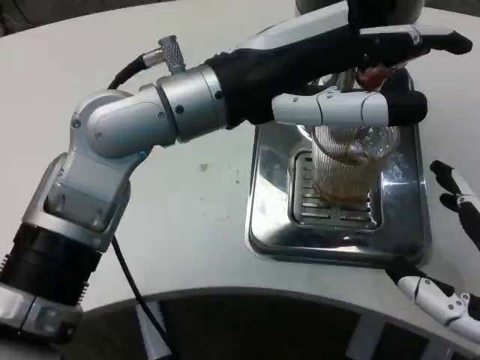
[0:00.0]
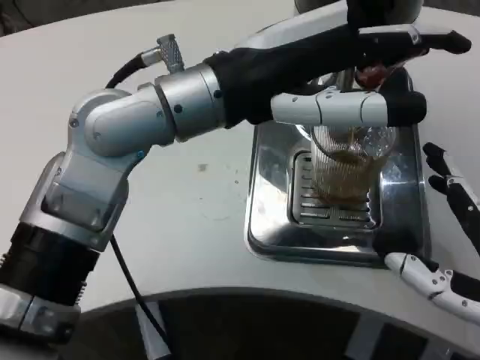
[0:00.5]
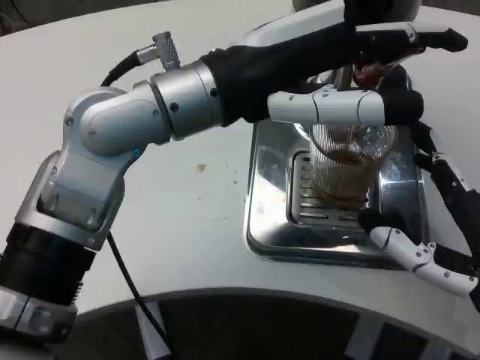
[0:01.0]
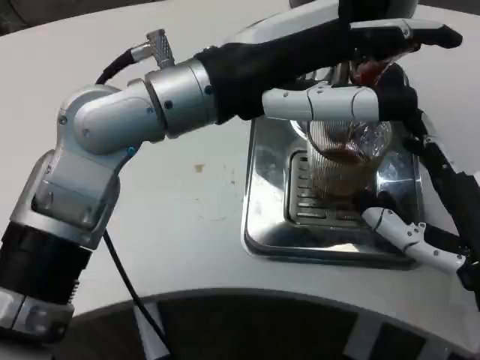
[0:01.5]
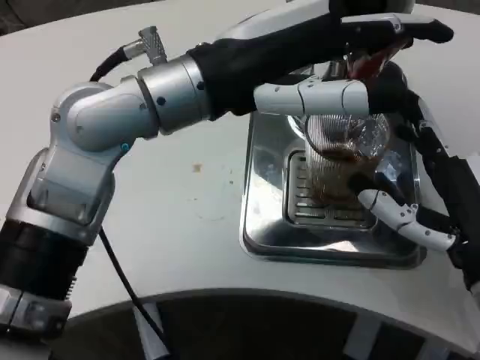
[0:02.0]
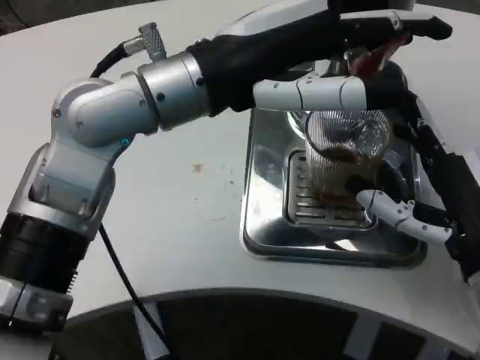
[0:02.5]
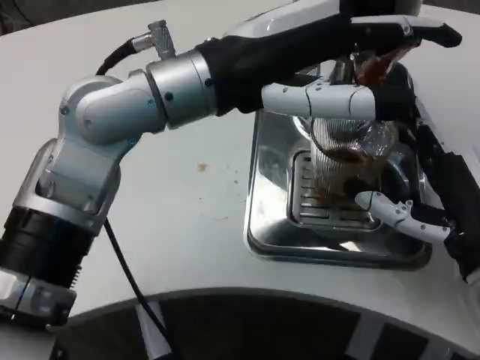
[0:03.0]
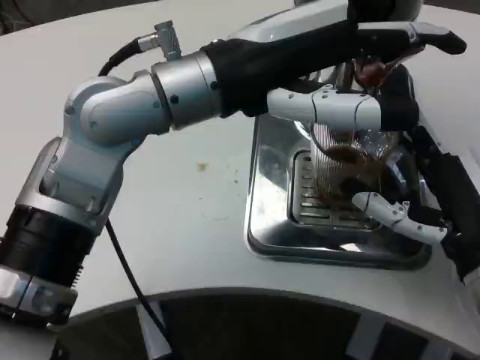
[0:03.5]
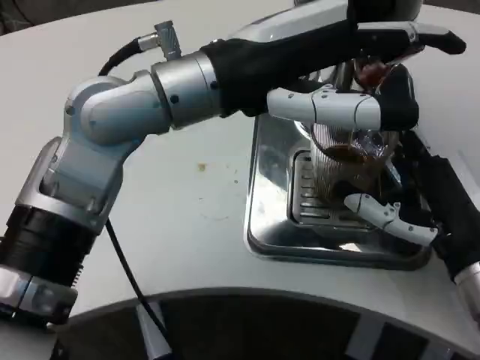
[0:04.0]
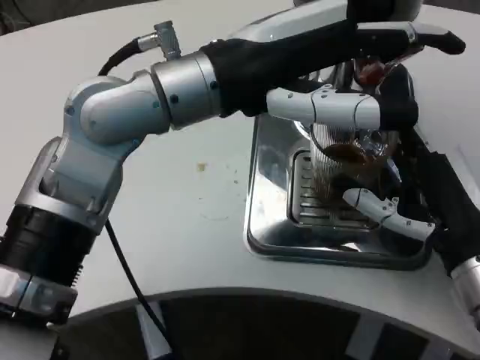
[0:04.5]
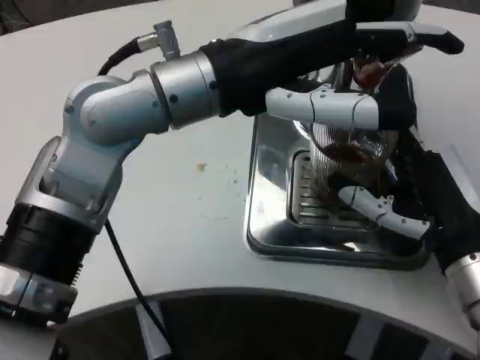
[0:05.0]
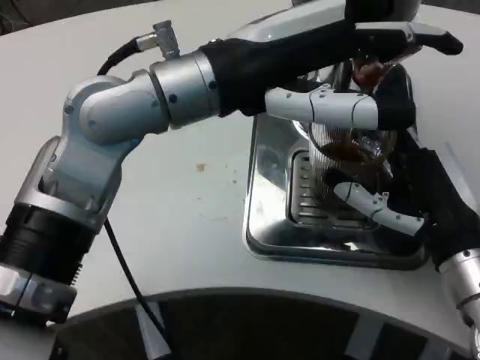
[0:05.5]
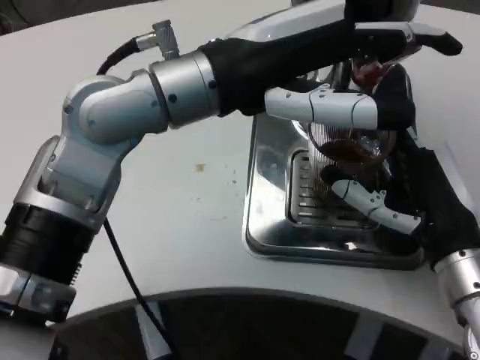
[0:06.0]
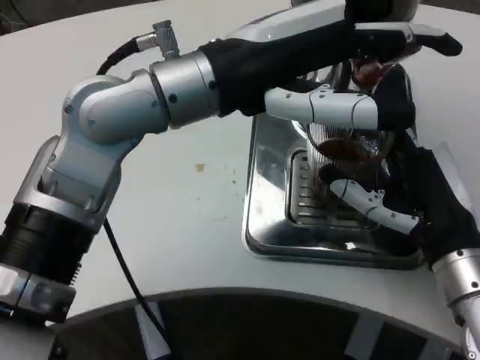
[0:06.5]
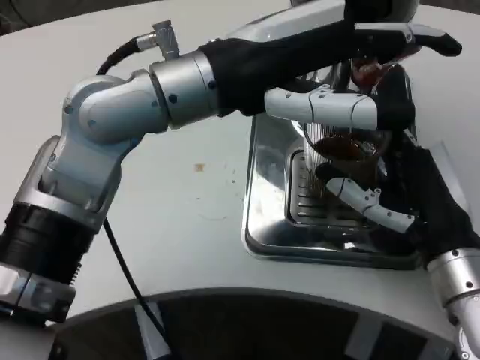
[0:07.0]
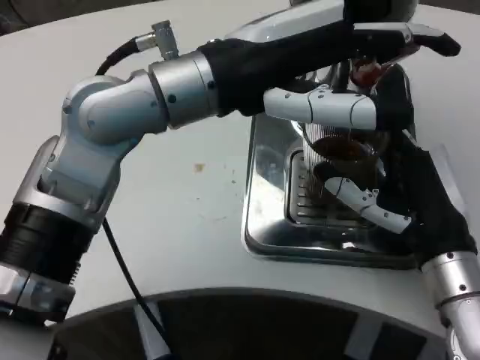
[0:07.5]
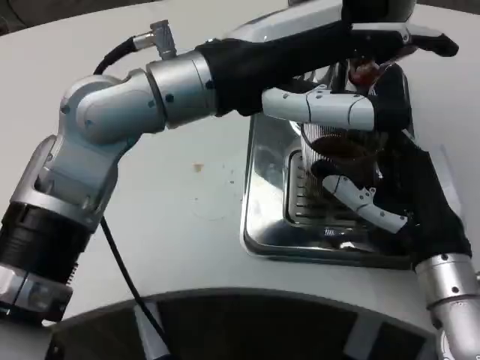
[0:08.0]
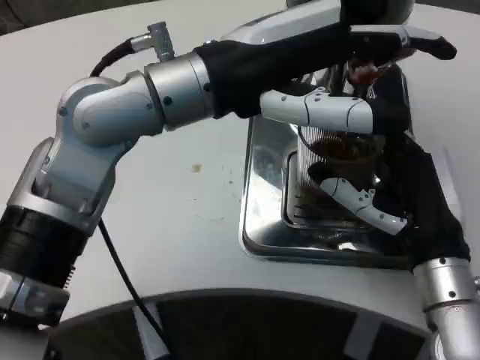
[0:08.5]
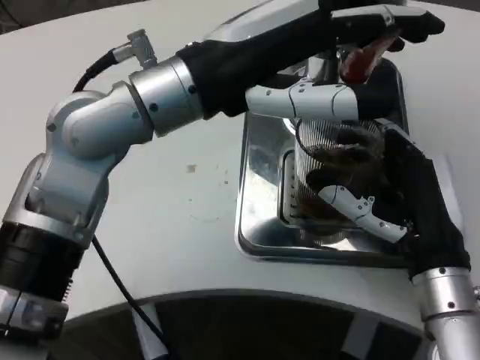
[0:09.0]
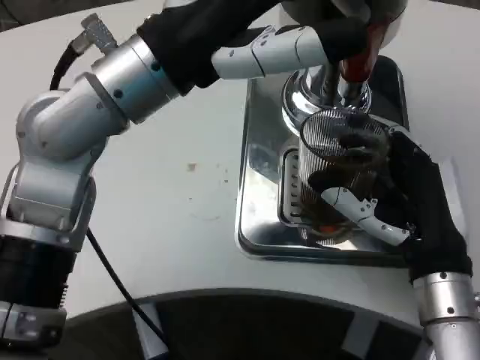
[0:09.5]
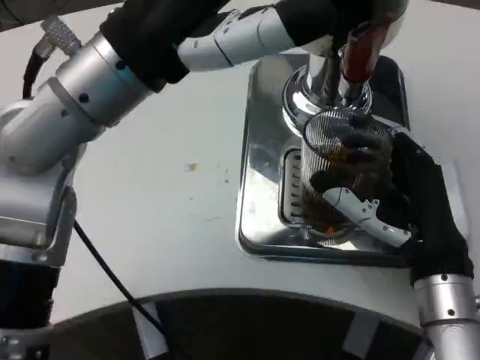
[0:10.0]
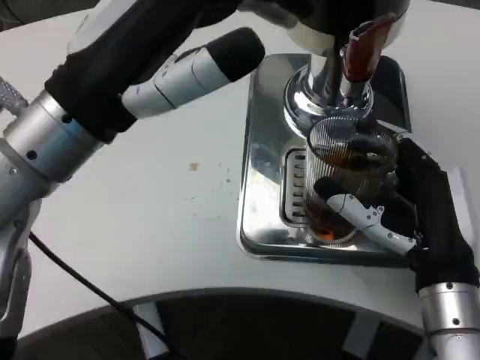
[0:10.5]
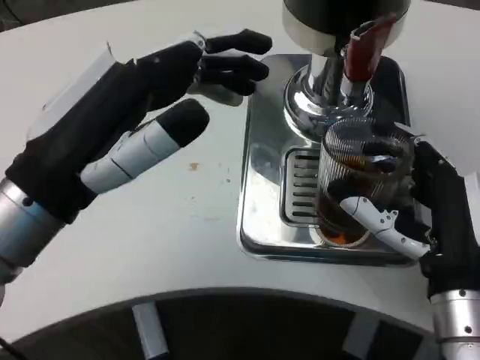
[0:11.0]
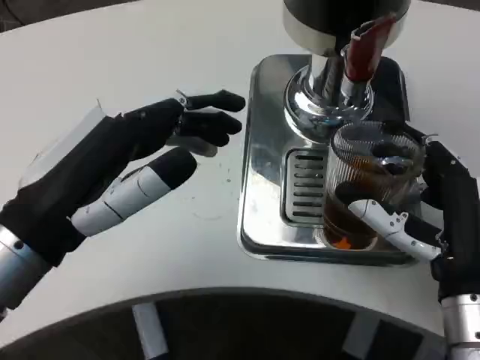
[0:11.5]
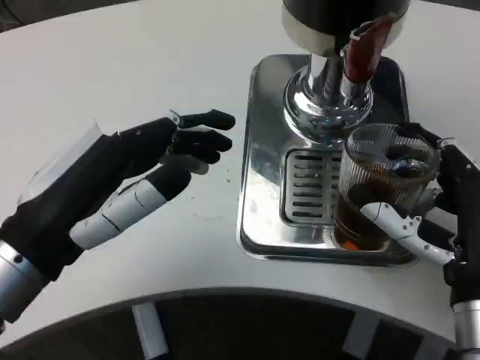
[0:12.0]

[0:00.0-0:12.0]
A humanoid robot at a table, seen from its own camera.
Task of the whole recording: Grasp the cup under the faucet to collect the drink, then remove the cup.
0:00.0 to 0:02.0: The right hand is displaced forward by approximately 10 cm.
0:04.0 to 0:08.0: The hands stay close to where they were, moving slightly.
0:10.0 to 0:12.0: The left hand goes some 15 cm downward, backward and to the left.

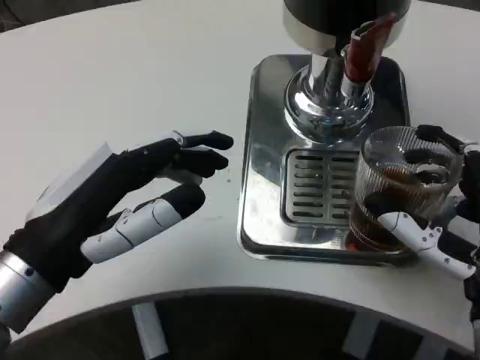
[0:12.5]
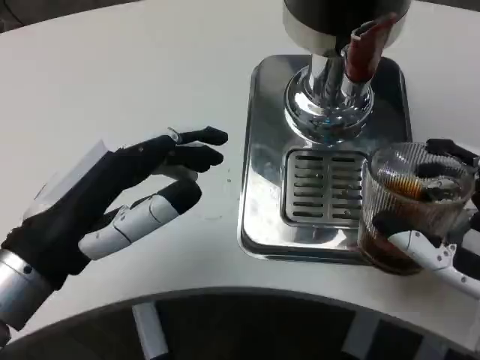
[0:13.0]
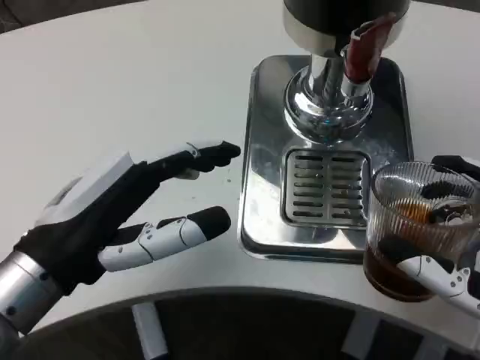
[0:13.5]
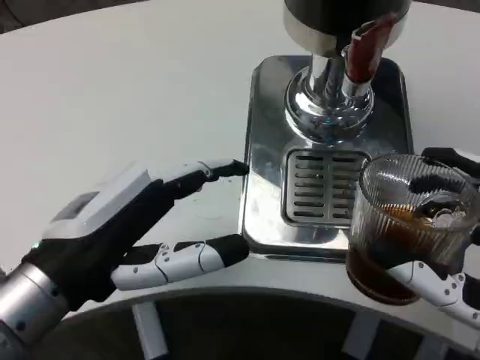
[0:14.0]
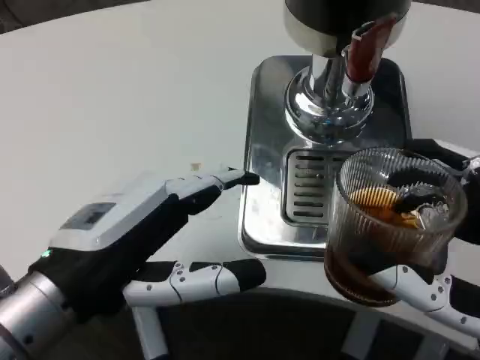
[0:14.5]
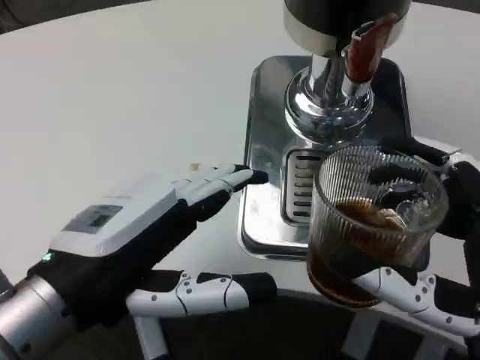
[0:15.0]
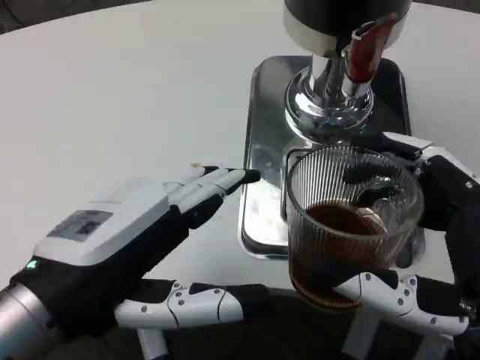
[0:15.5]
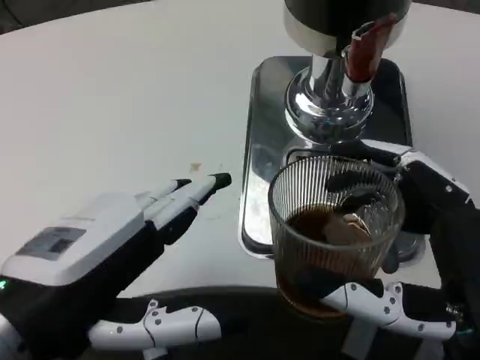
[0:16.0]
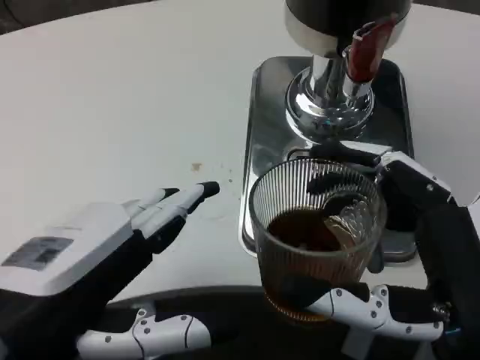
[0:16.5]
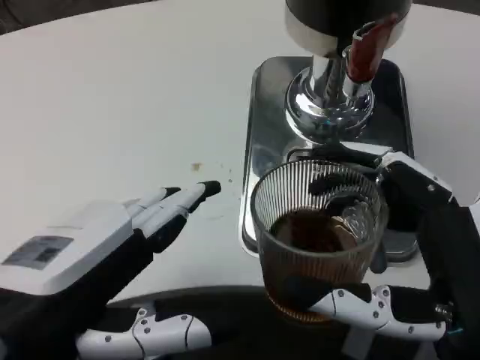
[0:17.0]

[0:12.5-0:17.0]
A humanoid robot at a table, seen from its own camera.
Task of the whole recording: Grasp the cup under the faucet to collect the drink, then remove the cup.
0:12.5 to 0:14.5: The right hand is displaced backward by about 5 cm.
0:14.5 to 0:17.0: The left hand shifts approximately 5 cm backward.

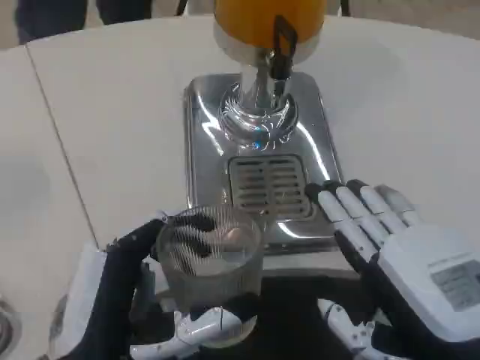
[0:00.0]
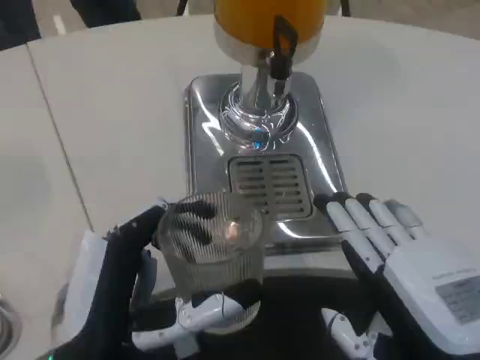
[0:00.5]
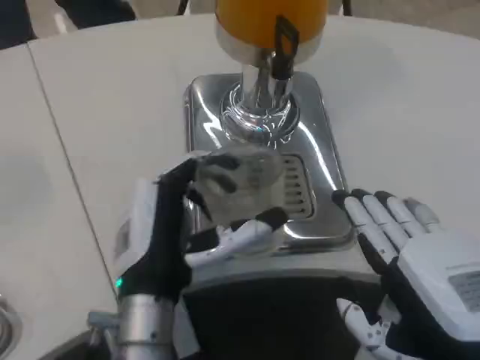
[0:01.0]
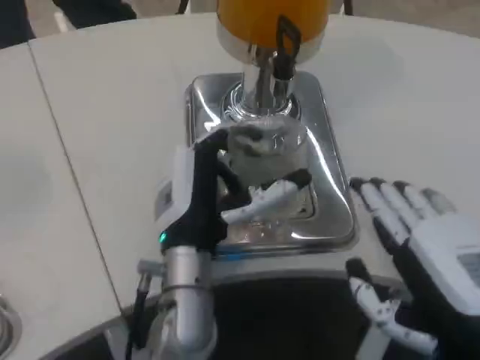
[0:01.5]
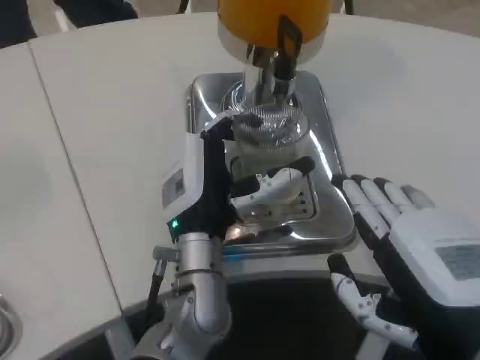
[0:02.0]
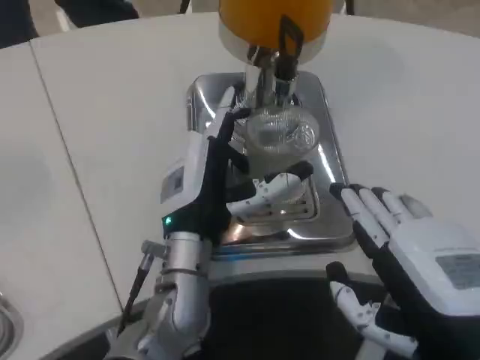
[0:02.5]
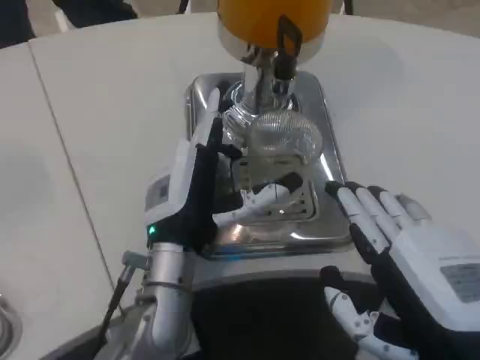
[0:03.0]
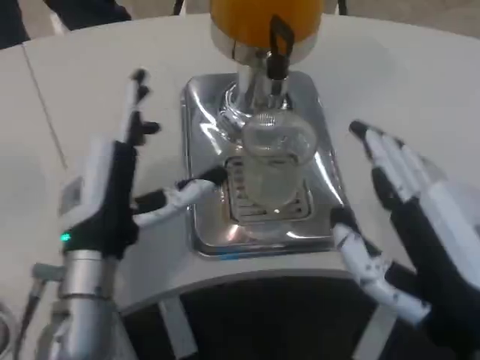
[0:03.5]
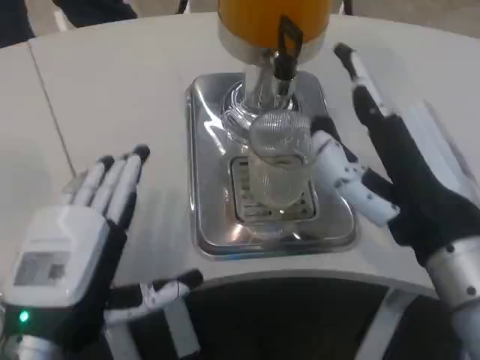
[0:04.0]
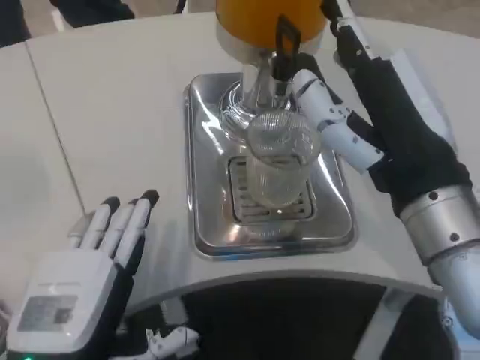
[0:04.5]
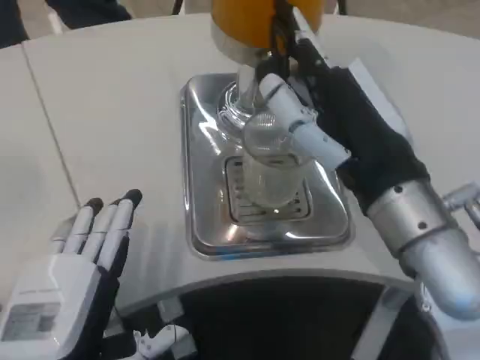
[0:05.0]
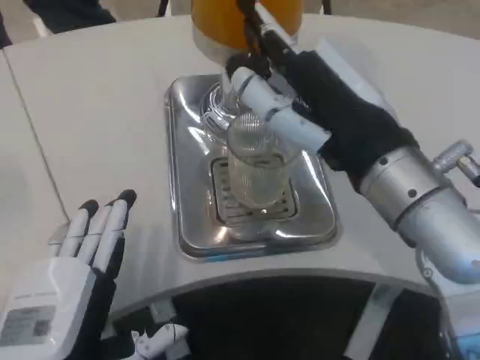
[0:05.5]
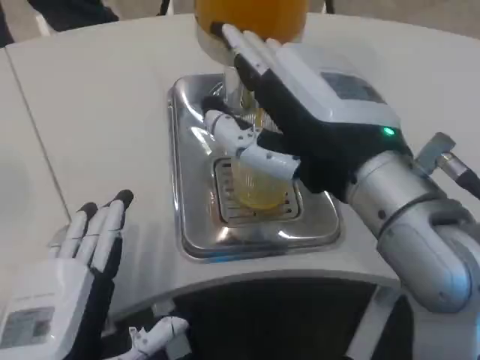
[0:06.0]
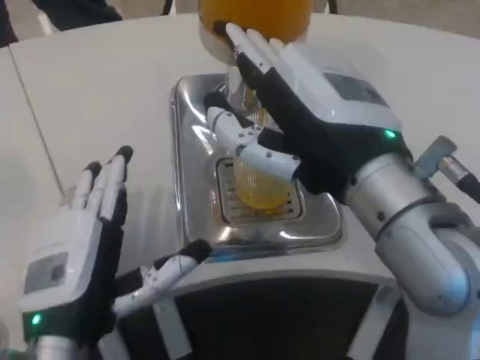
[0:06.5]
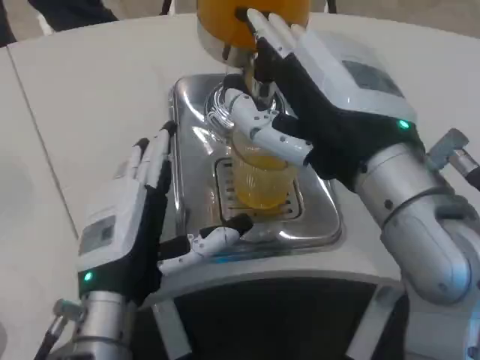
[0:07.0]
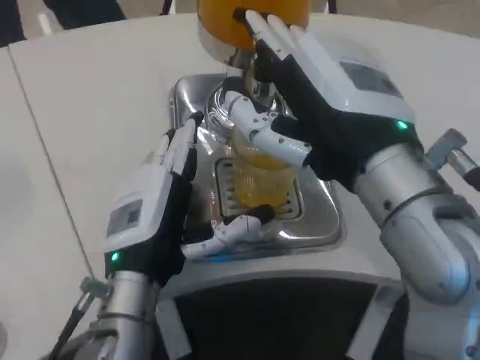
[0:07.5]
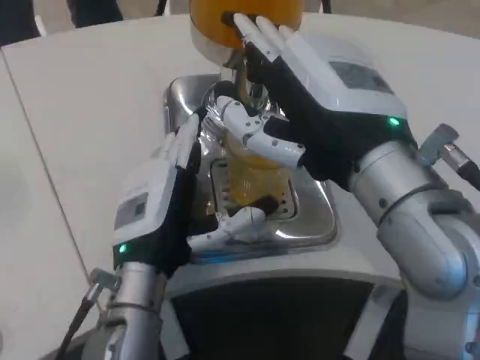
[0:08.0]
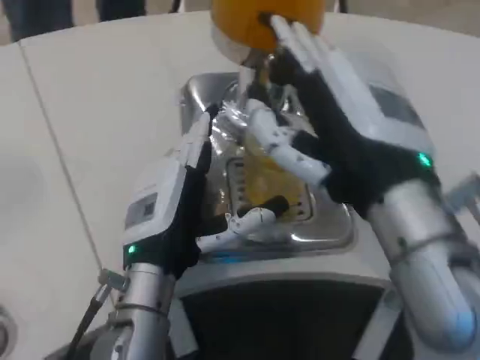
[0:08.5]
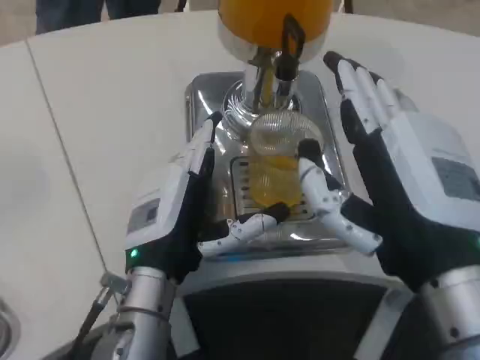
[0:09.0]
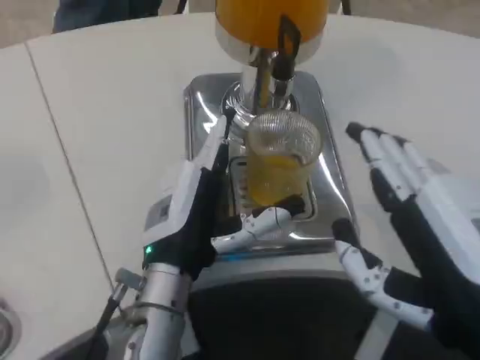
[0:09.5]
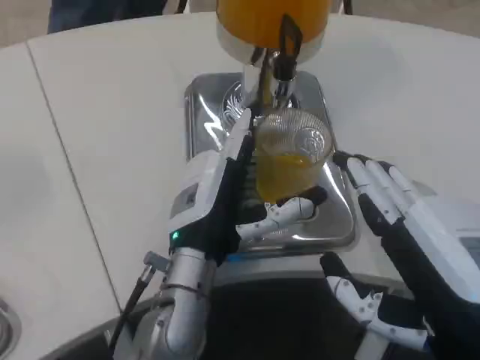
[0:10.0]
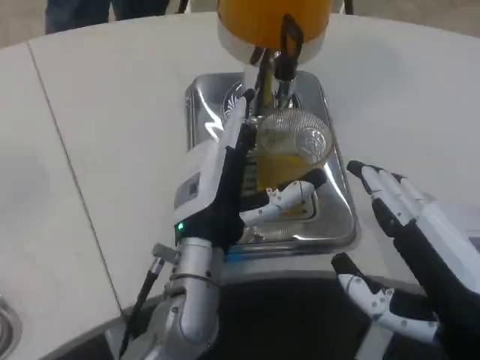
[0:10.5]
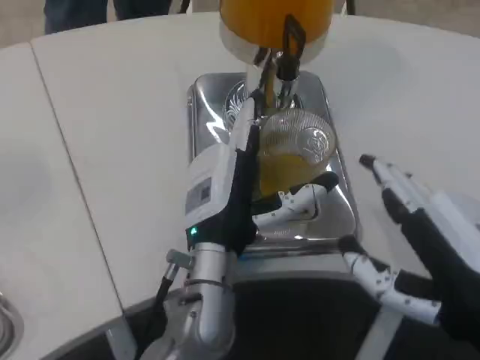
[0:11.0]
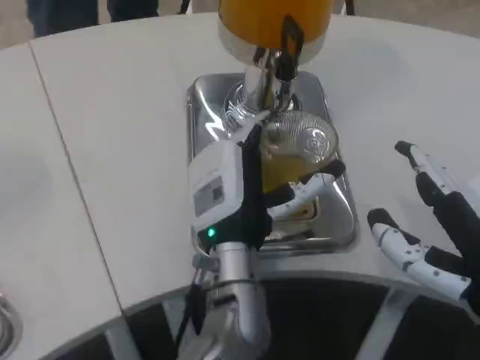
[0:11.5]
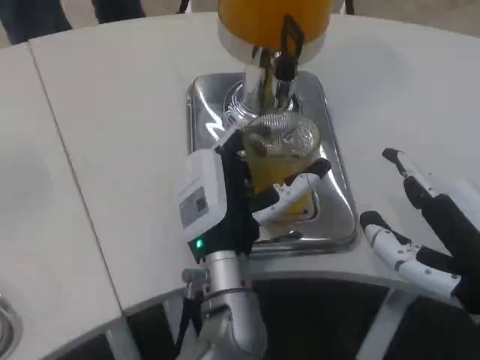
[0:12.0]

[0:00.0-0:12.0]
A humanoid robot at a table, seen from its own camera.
Task of the whole recording: Grasp the cup under the faucet to collect the drink, then remove the cup.
0:00.0 to 0:02.0: The left hand moves forward and to the right, roughly 20 cm.
0:02.0 to 0:04.0: The right hand shifts by roughly 5 cm. The left hand moves to the left and backward, approximately 20 cm.
0:04.0 to 0:06.0: The right hand shifts roughly 5 cm upward.
0:06.0 to 0:08.0: The left hand goes roughly 15 cm forward and to the right.
0:08.0 to 0:10.0: The right hand shifts some 15 cm backward, downward and to the right.
0:10.0 to 0:12.0: The left hand travels to the right by approximately 5 cm.
